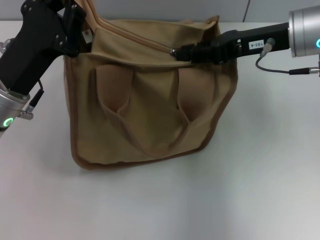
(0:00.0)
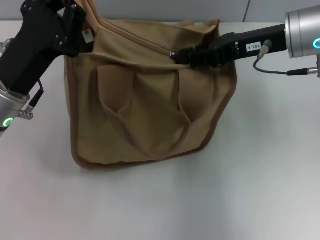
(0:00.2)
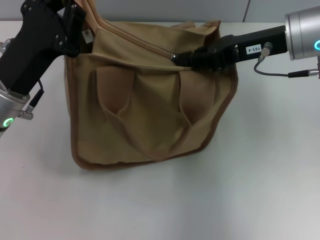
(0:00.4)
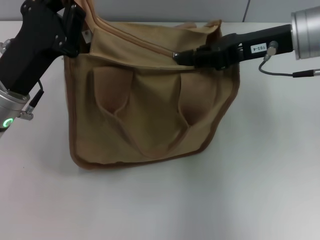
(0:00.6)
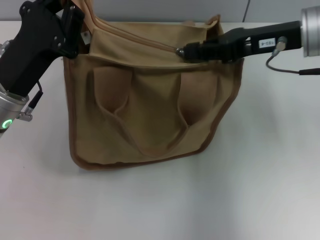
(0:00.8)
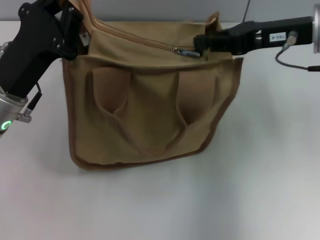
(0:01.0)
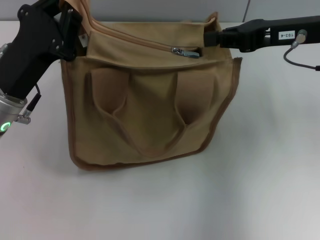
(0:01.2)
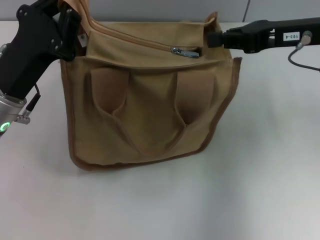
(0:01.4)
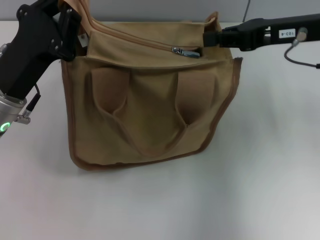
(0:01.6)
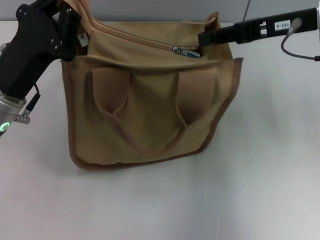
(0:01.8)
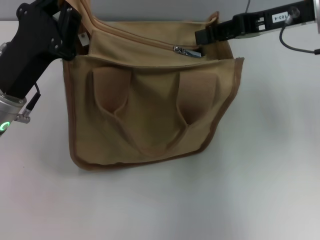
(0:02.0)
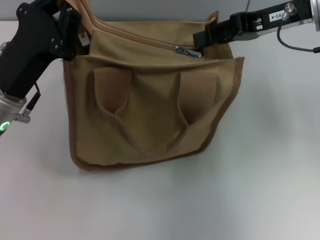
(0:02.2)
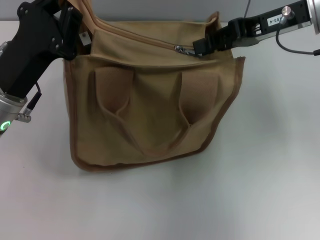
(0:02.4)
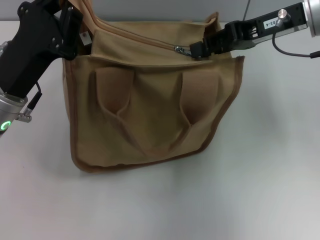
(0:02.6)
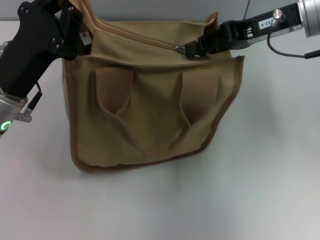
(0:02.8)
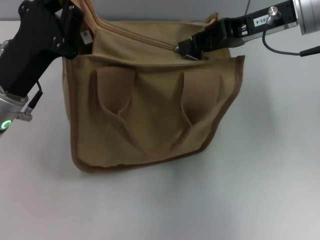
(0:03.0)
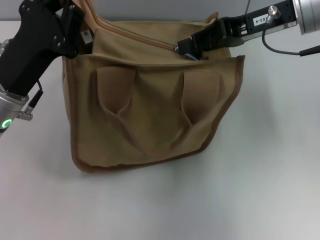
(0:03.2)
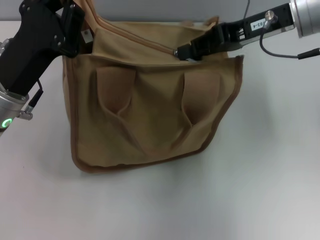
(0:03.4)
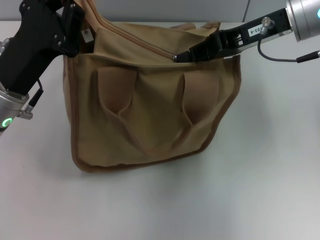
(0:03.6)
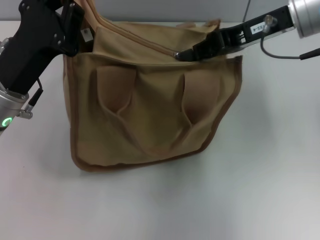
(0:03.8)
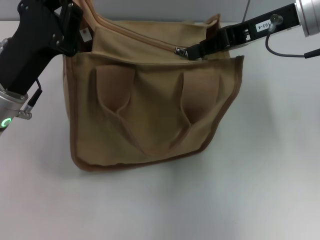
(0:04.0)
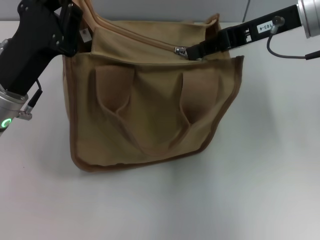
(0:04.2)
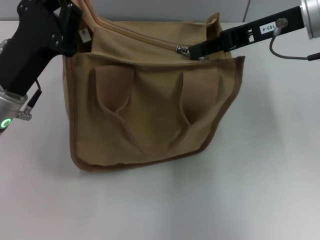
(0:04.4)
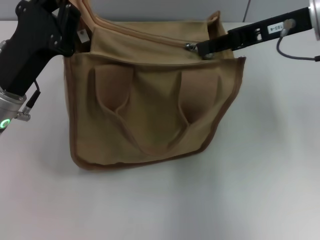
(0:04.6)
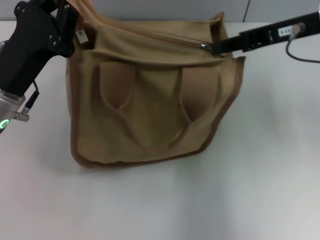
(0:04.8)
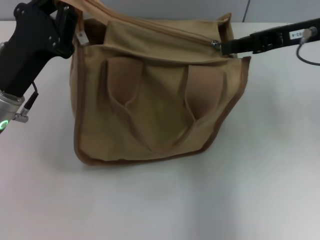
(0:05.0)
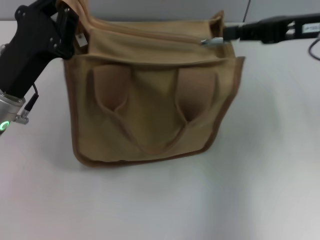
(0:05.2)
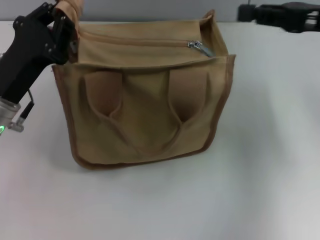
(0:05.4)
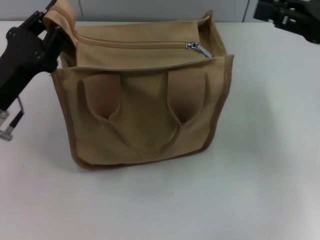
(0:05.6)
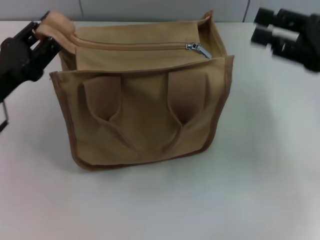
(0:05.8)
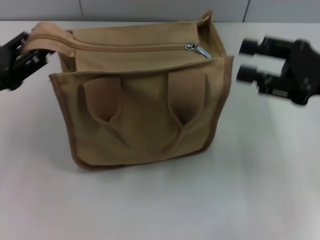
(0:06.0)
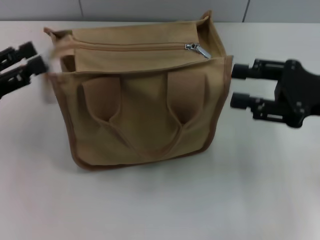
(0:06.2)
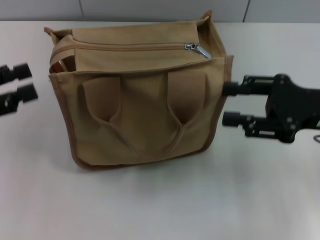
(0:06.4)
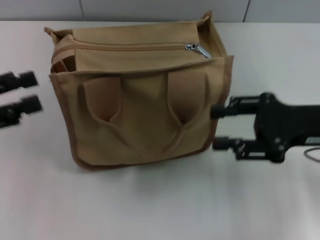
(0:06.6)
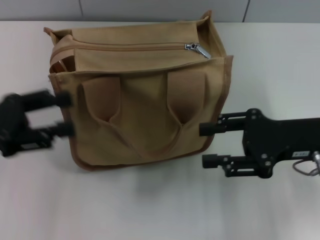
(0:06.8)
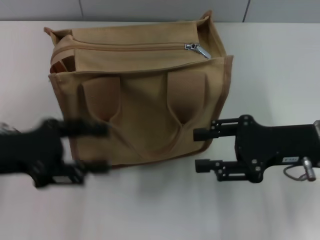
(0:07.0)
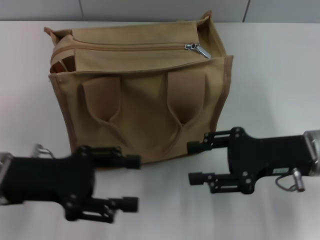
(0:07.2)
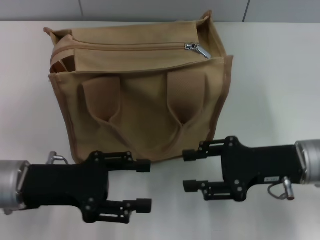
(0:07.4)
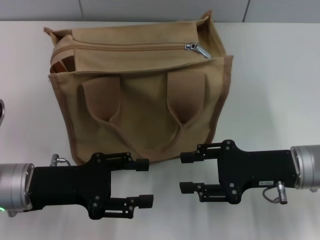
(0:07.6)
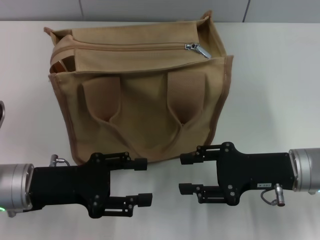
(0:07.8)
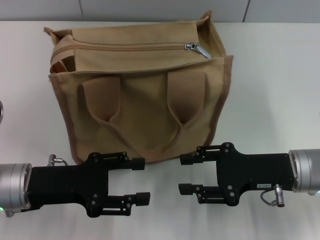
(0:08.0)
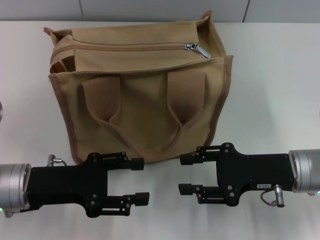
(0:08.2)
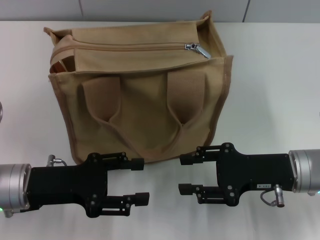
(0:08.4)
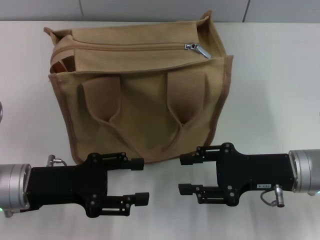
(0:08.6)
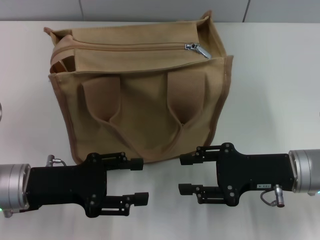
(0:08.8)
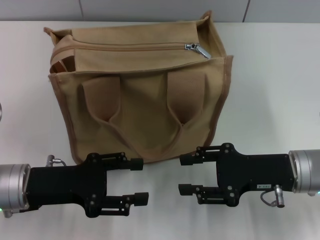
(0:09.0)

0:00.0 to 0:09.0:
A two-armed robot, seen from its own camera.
Step, 0:00.0 to 0:05.4: Pull up the zipper with your right hand.
Step, 0:05.6 to 0:06.6: Grab the zipper with your left hand.
0:00.0 to 0:01.6: The grippers move only a little.
0:03.0 to 0:04.4: There are only small adjustments of the grippers.
0:04.4 to 0:06.0: The left gripper is displaced to the left by approximately 10 cm, and opens its fingers. Meanwhile the right gripper shifts approximately 15 cm backward, to the right and downward, and opens its fingers.
0:06.0 to 0:07.6: The left gripper is displaced to the right by some 10 cm, and opens its fingers; the right gripper goes some 10 cm downward and to the left.
0:07.6 to 0:09.0: Both grippers stay about where they are.
